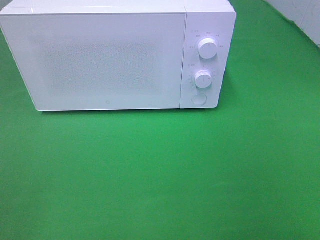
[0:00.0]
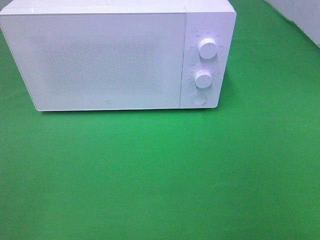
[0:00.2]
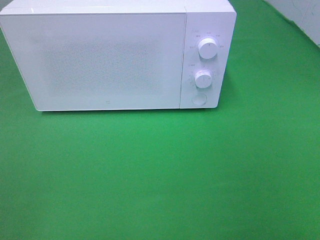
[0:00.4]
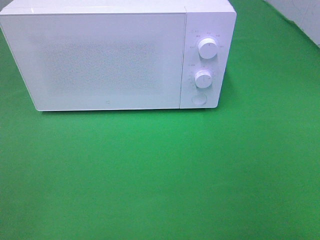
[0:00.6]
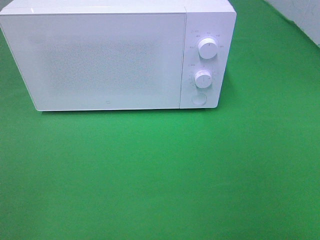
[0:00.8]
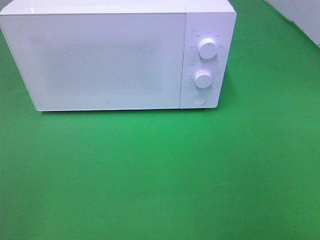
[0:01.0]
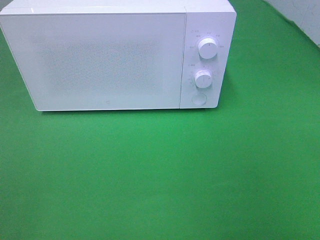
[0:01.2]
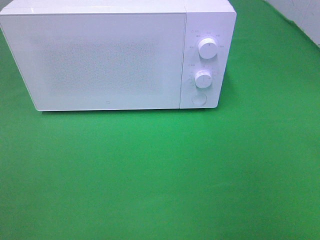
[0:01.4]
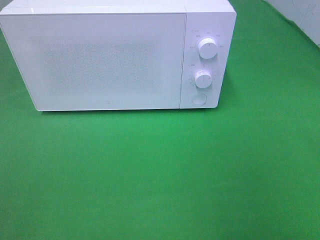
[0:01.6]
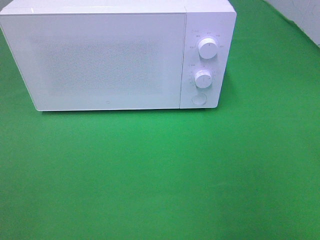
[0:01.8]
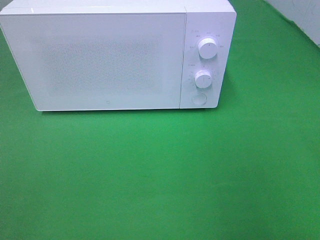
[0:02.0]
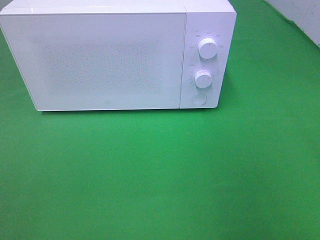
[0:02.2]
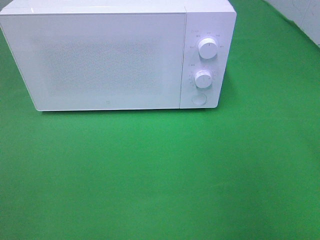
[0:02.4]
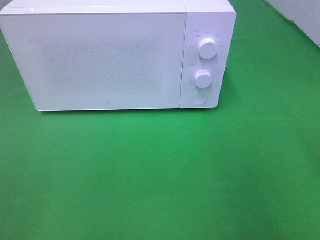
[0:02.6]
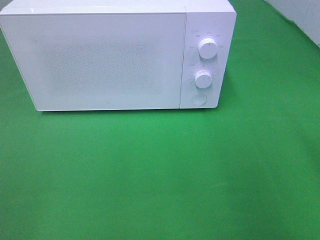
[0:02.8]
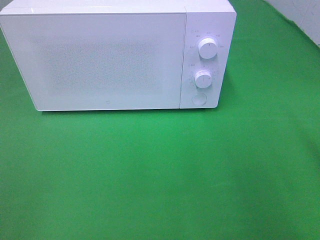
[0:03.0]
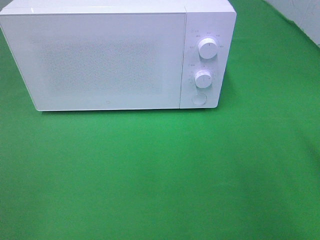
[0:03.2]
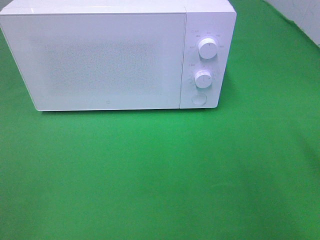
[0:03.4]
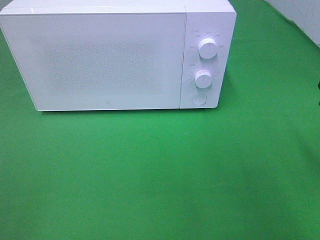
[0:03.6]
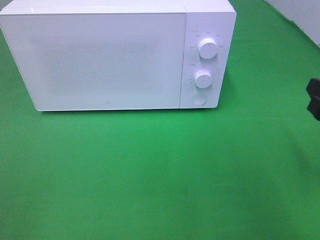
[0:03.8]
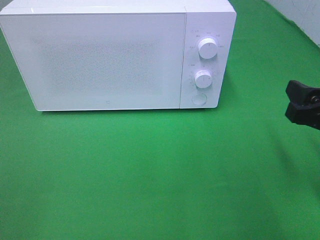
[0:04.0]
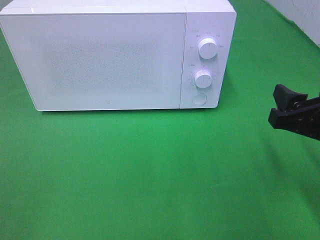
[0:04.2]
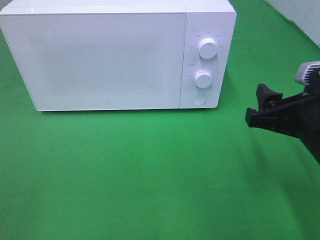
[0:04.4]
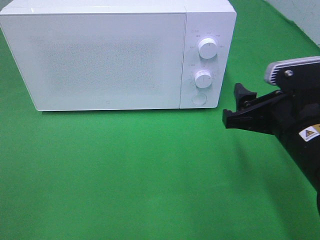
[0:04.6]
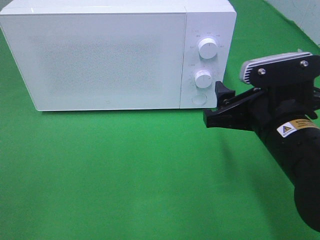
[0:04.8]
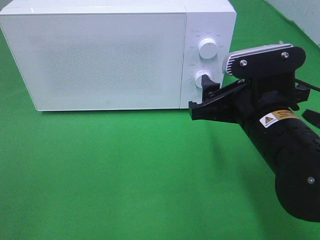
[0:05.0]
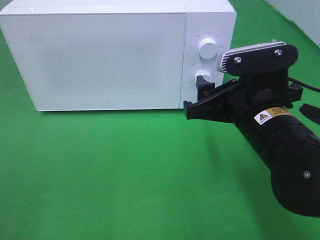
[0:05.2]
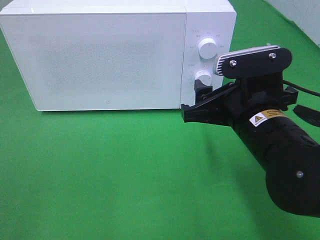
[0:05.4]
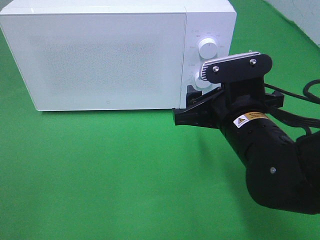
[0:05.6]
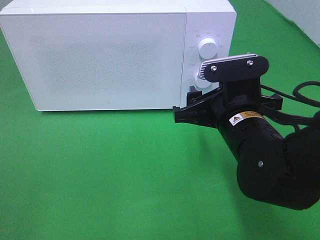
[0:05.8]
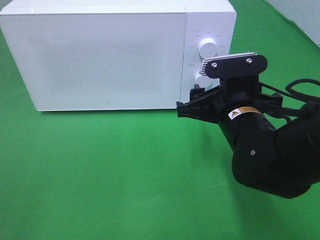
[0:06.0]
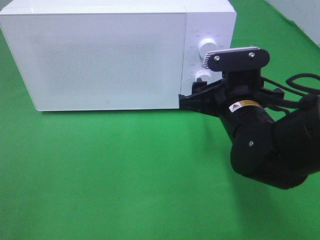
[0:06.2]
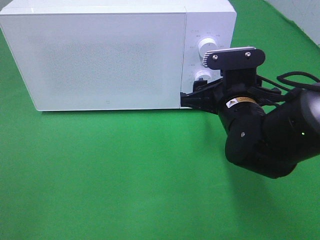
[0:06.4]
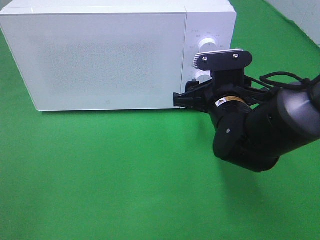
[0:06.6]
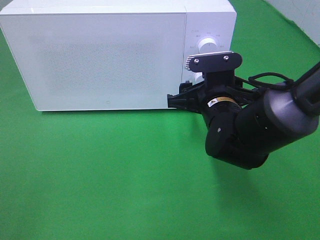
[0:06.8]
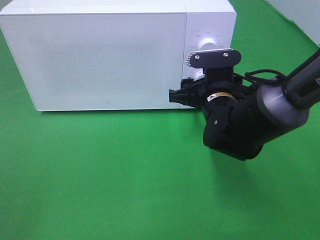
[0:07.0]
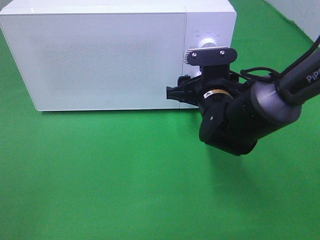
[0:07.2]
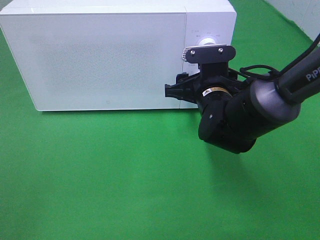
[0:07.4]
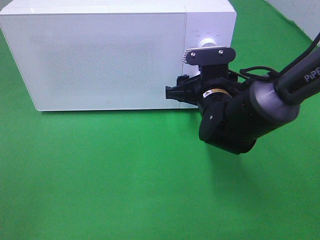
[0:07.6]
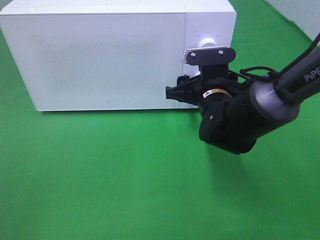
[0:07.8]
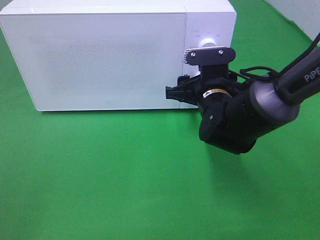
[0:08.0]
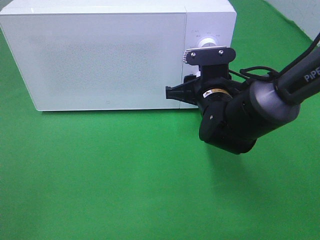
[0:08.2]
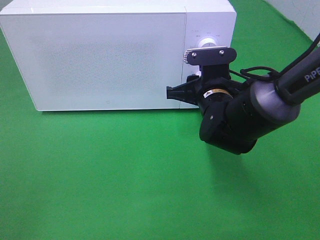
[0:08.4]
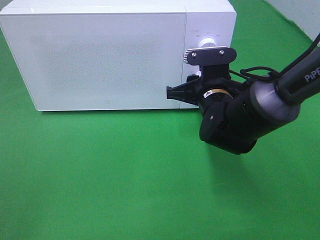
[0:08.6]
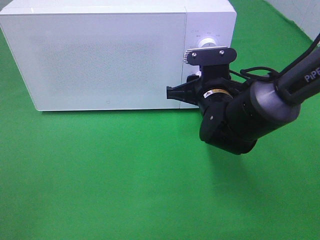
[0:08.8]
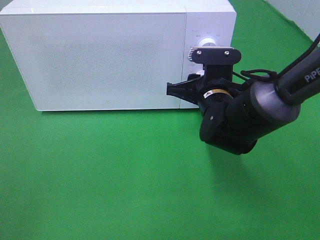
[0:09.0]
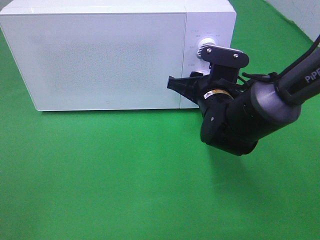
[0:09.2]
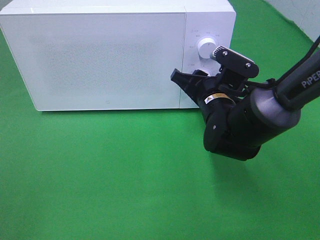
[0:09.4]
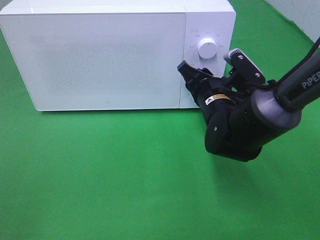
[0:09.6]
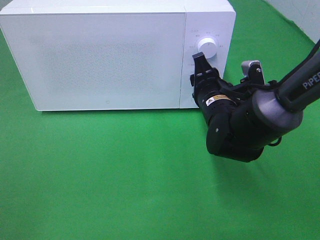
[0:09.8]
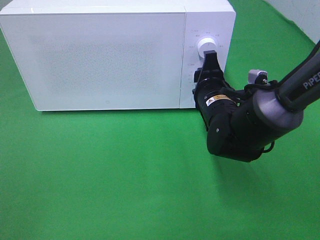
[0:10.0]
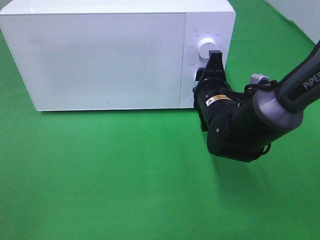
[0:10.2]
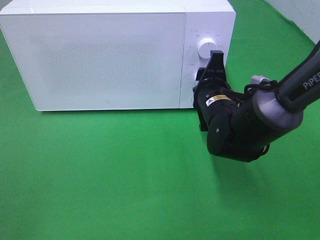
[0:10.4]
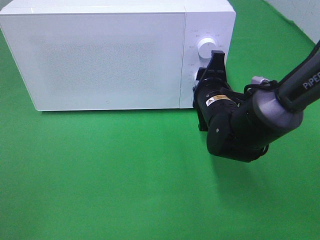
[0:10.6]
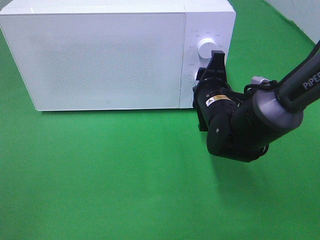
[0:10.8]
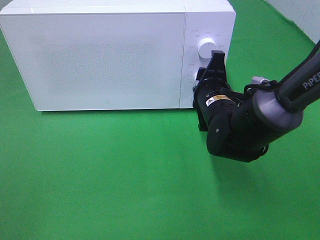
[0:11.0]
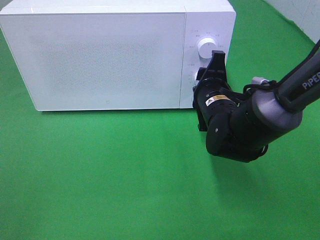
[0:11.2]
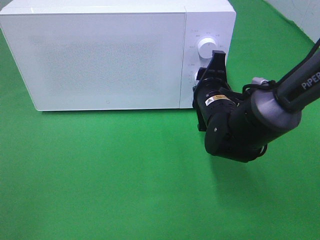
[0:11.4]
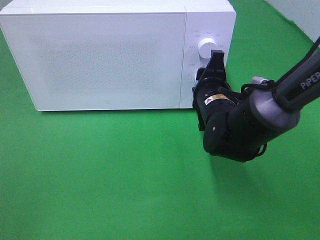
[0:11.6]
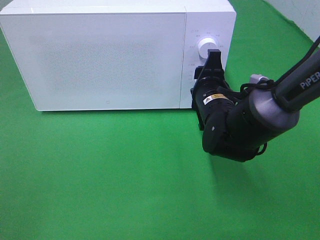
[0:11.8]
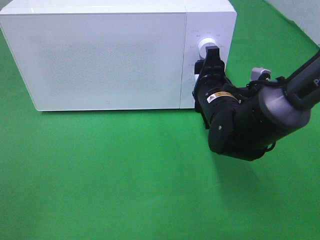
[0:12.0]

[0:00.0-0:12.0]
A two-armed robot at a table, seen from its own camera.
Task of the whole recording: Heat the burger.
0:03.0 to 0:04.4: The right gripper goes some 10 cm to the left.
0:04.4 to 0:06.0: The right gripper shifts approximately 10 cm to the left and forward.
0:06.0 to 0:07.6: The right gripper shifts approximately 10 cm forward.
0:07.6 to 0:09.0: The right gripper closes its fingers.
0:10.4 to 0:12.0: The grippers move only a little.

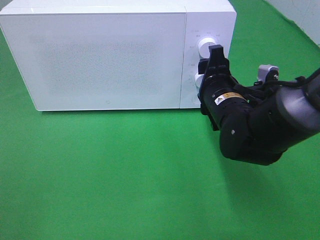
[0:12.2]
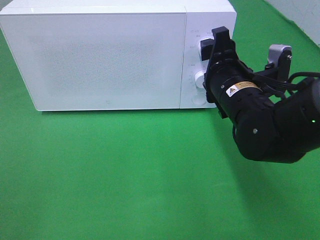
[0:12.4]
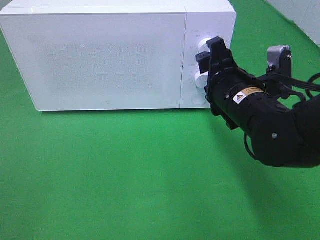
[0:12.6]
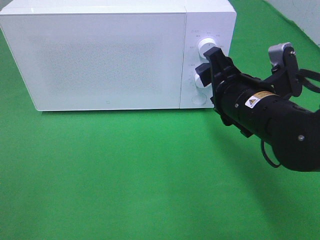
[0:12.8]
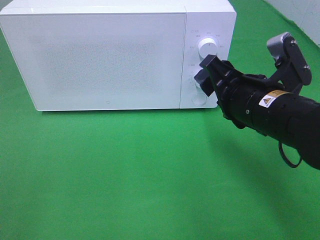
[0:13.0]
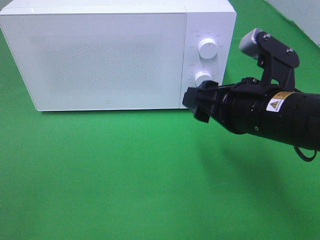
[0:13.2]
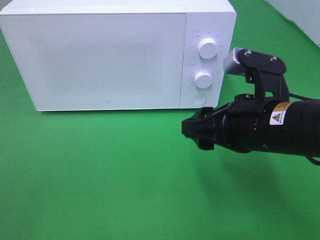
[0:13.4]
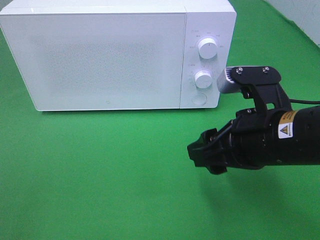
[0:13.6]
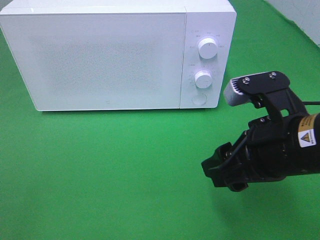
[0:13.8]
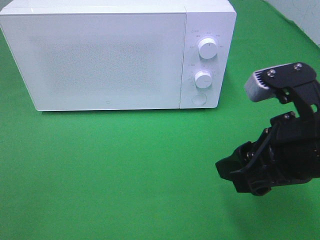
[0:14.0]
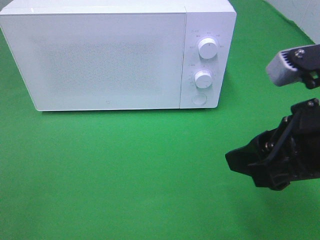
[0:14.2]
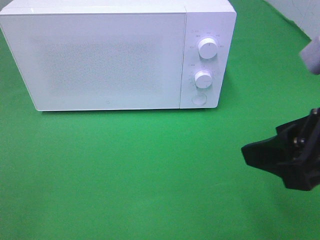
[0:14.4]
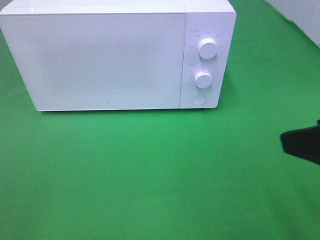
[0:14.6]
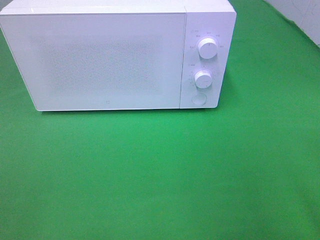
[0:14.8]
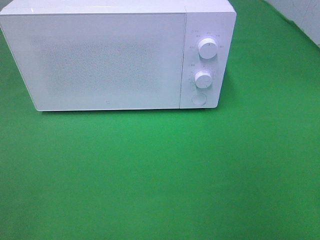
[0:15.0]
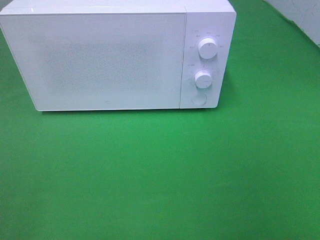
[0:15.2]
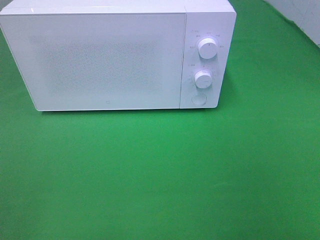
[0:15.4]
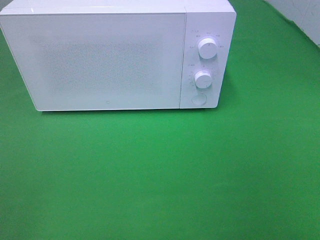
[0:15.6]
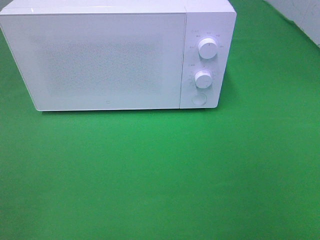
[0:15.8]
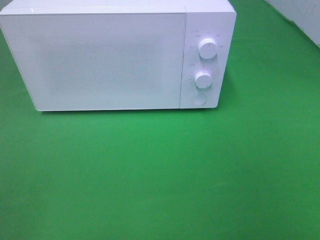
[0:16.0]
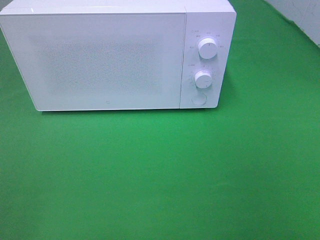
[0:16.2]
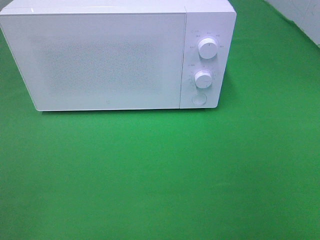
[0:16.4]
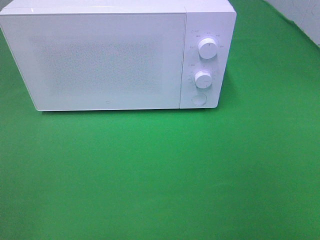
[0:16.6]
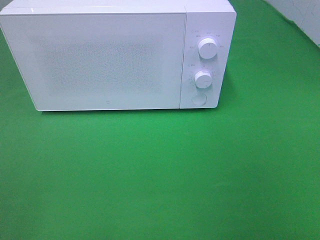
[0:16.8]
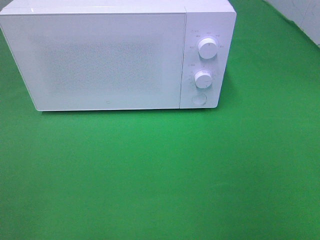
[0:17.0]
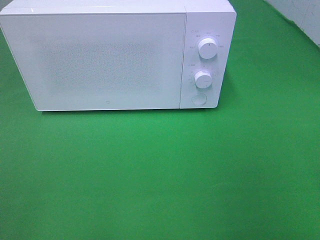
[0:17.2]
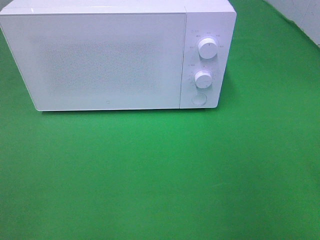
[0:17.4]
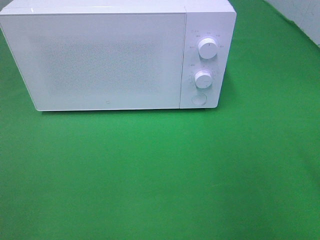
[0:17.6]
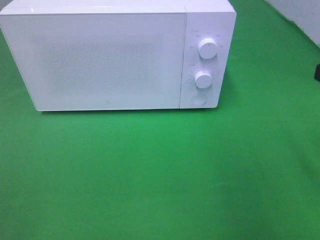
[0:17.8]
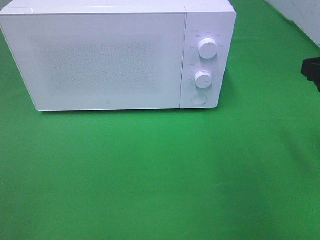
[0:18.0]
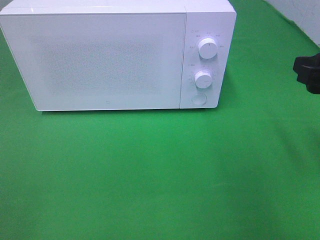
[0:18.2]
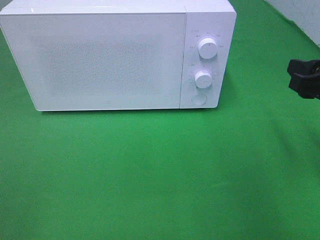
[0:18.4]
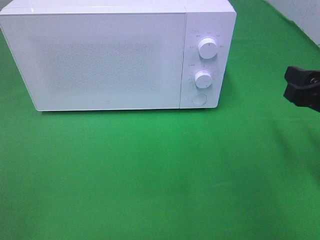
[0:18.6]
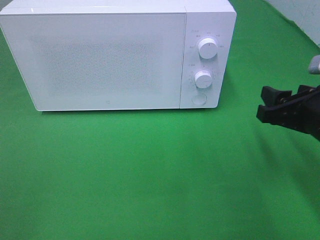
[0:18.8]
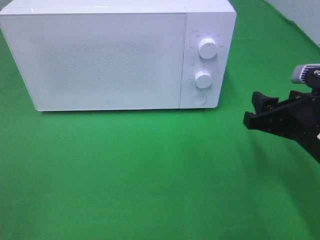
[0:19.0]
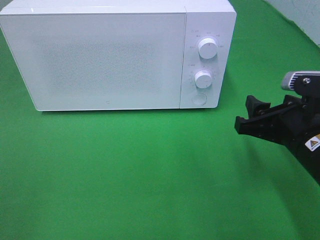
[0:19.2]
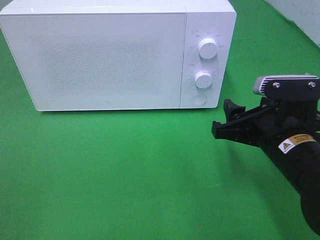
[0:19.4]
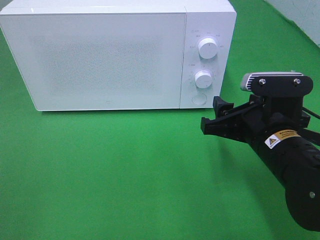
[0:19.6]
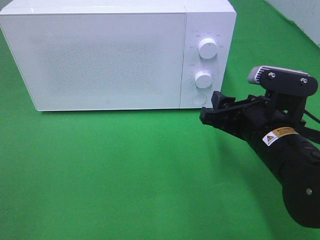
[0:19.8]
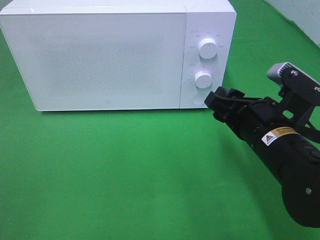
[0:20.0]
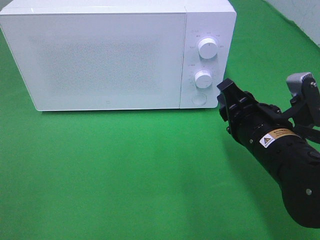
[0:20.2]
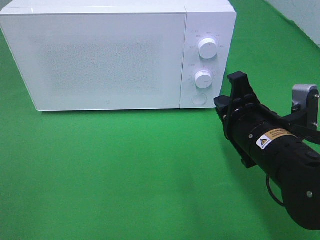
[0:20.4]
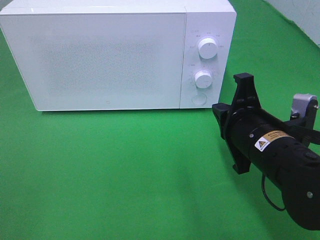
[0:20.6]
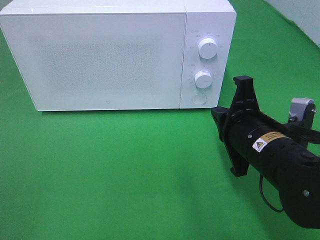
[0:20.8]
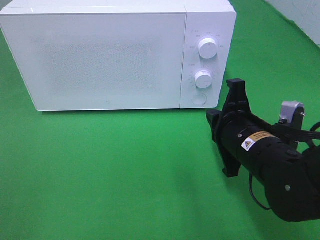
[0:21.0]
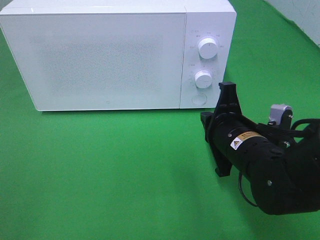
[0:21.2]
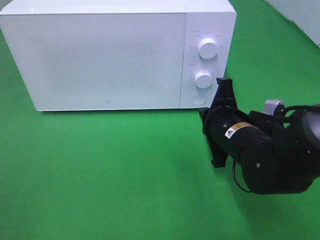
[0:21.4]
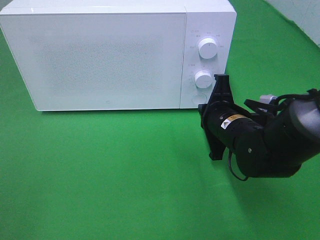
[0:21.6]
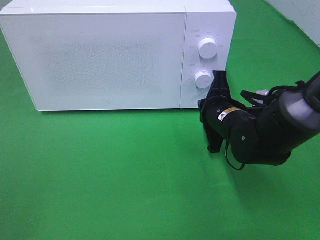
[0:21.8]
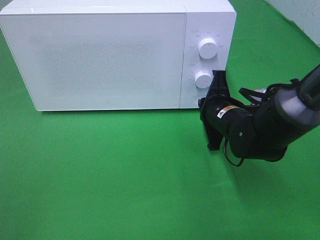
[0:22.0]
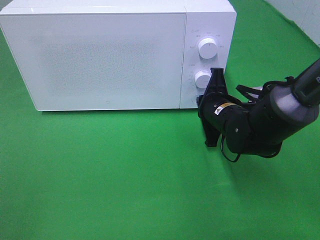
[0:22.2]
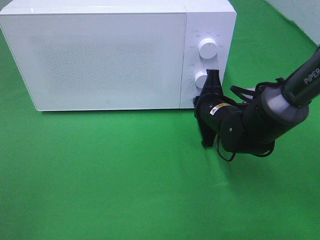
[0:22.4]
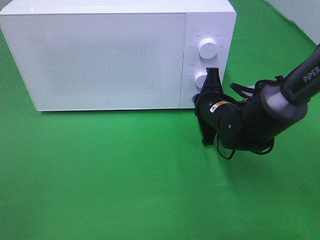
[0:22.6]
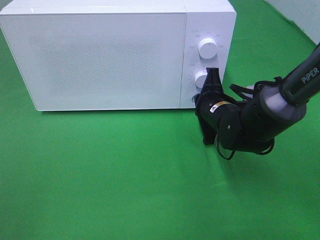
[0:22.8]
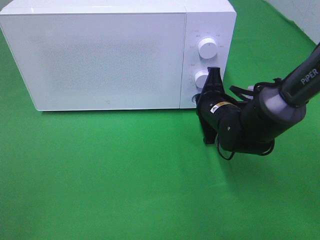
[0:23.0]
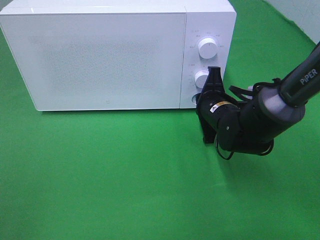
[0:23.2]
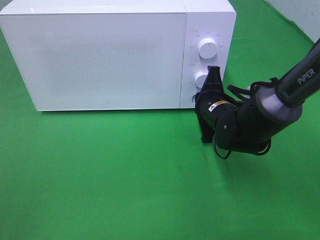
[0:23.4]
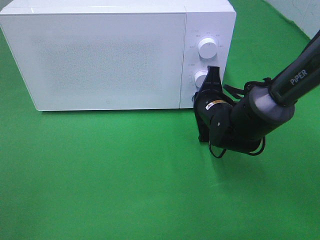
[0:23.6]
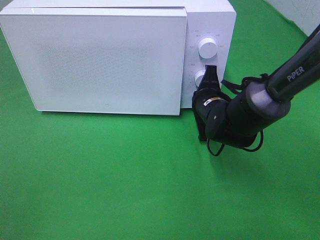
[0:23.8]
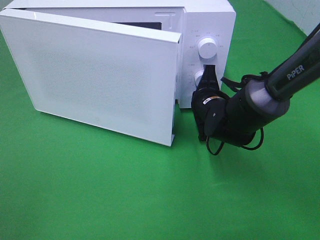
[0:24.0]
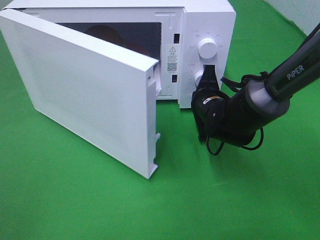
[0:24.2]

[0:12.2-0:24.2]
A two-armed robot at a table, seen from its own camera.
Task of the whole recording: Heat the burger.
0:12.2 to 0:13.8: The right gripper shifts about 15 cm backward and upward.
0:13.8 to 0:15.2: The right gripper travels to the right, backward and upward by roughly 20 cm.
0:16.6 to 0:18.2: The right gripper heads forward, covering roughly 20 cm.
0:18.2 to 0:19.8: The right gripper is displaced to the left and downward by some 15 cm.
0:19.8 to 0:21.2: The right gripper shifts by approximately 5 cm, and closes its fingers.
0:21.2 to 0:22.6: The right gripper is displaced forward by some 10 cm.
